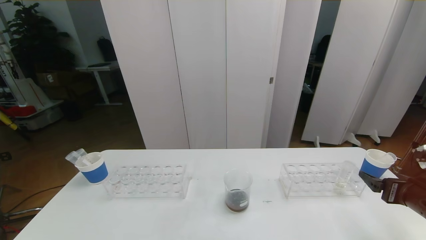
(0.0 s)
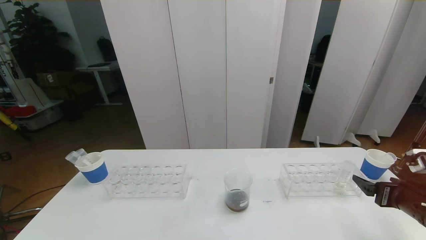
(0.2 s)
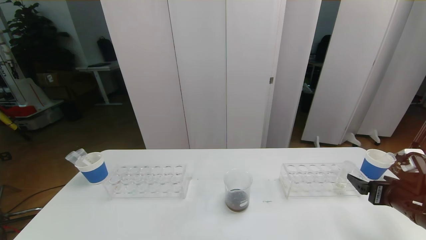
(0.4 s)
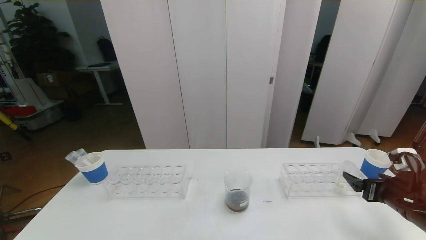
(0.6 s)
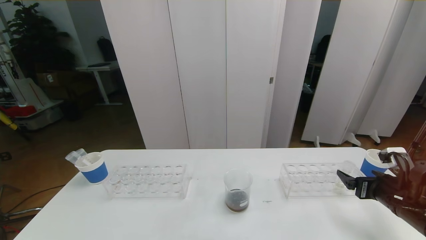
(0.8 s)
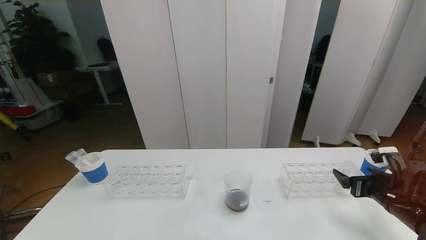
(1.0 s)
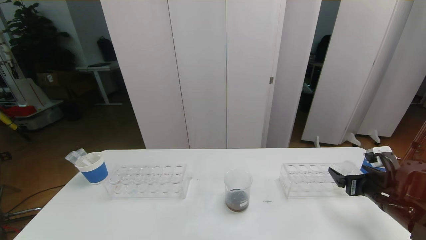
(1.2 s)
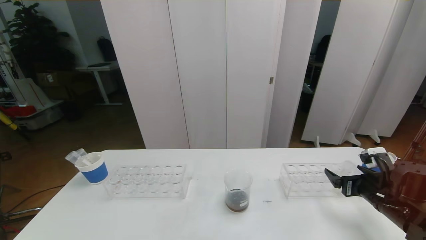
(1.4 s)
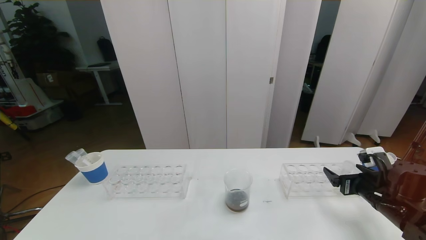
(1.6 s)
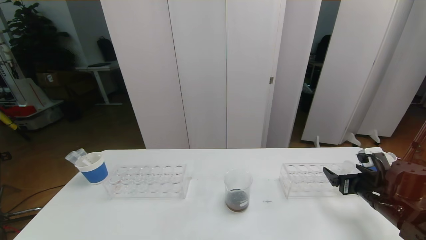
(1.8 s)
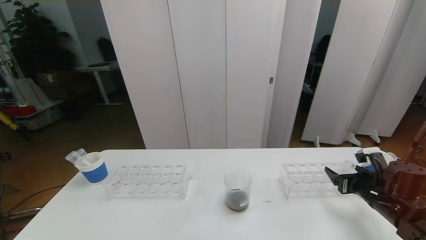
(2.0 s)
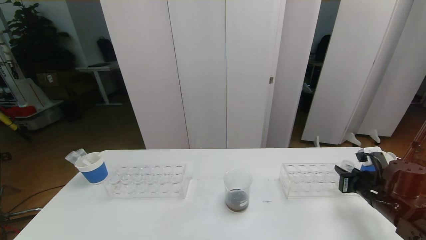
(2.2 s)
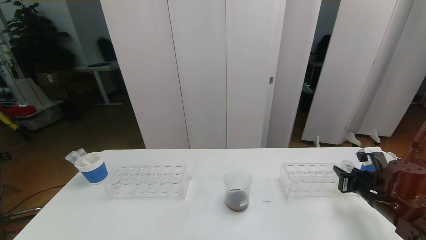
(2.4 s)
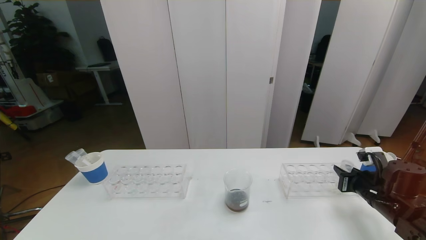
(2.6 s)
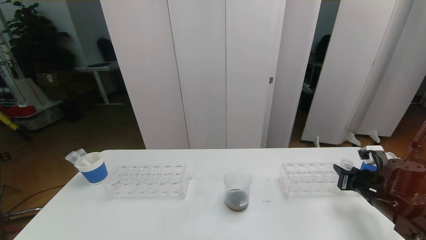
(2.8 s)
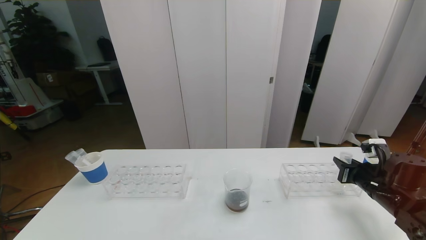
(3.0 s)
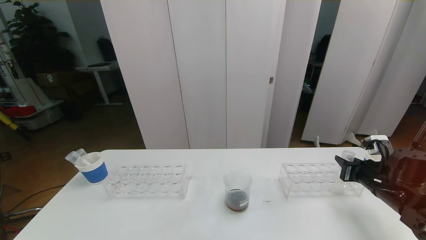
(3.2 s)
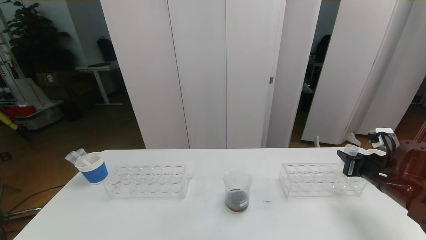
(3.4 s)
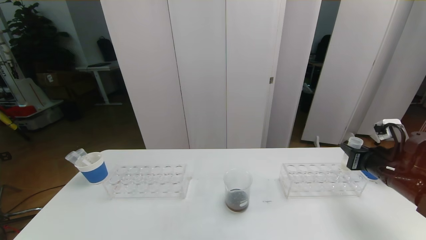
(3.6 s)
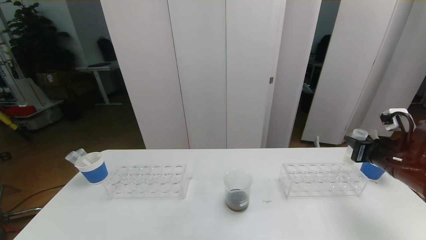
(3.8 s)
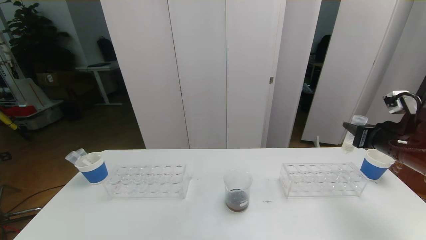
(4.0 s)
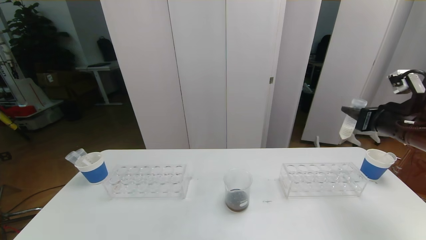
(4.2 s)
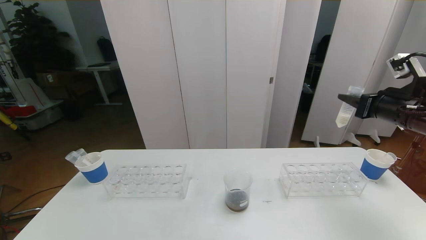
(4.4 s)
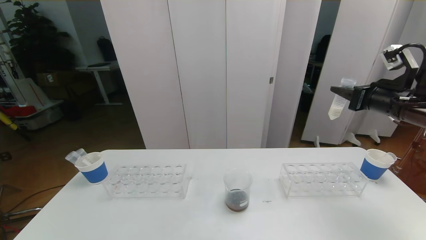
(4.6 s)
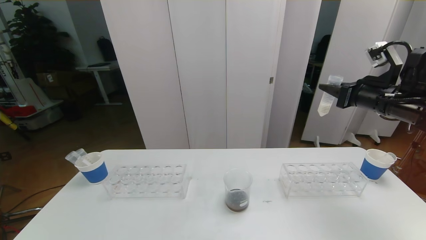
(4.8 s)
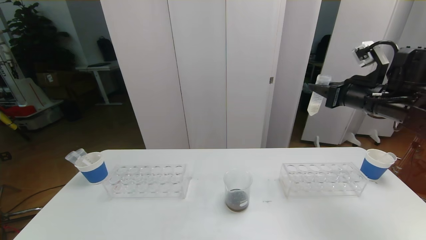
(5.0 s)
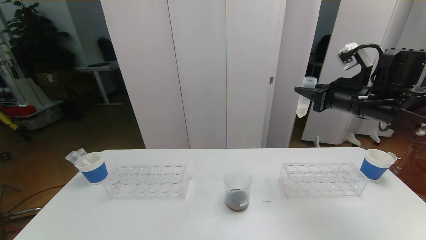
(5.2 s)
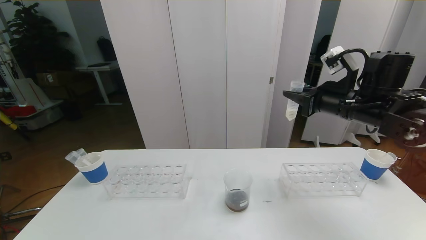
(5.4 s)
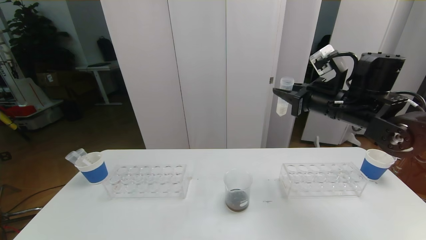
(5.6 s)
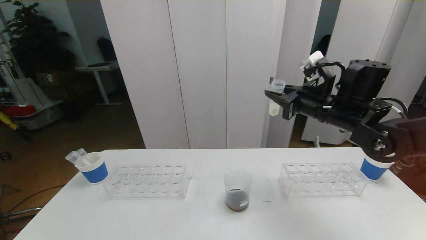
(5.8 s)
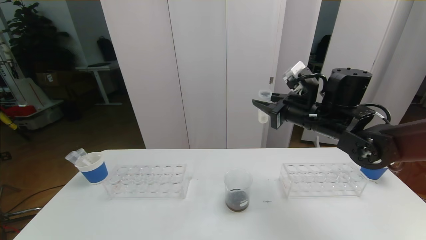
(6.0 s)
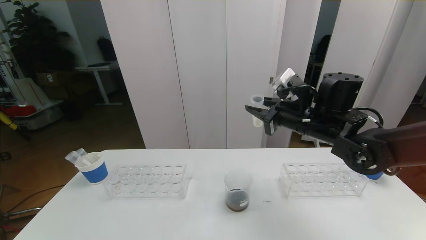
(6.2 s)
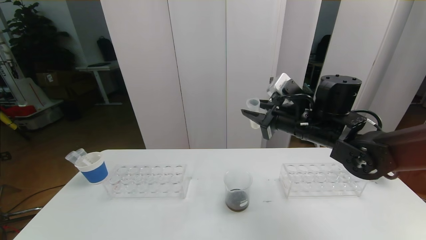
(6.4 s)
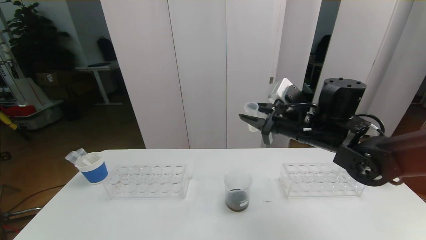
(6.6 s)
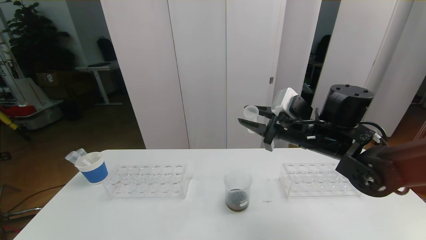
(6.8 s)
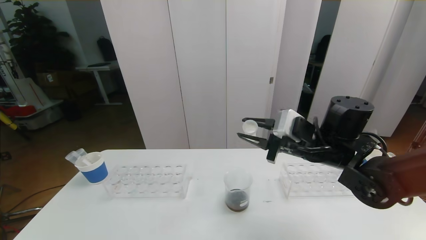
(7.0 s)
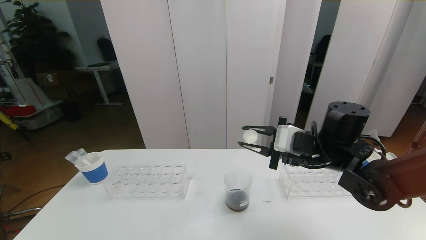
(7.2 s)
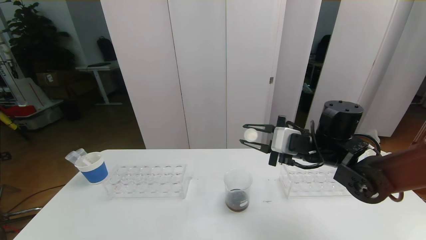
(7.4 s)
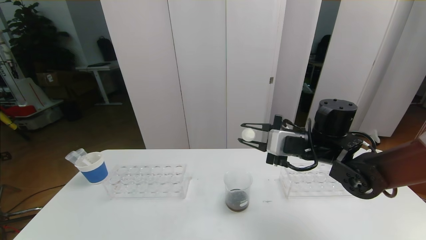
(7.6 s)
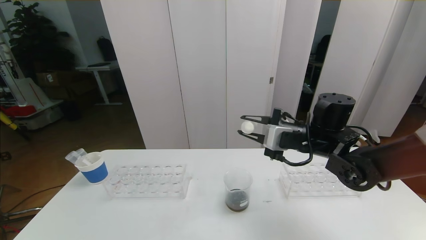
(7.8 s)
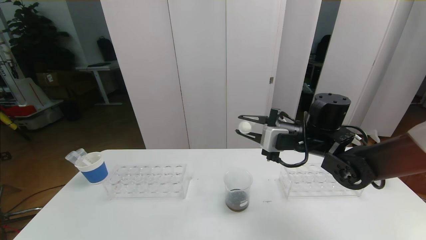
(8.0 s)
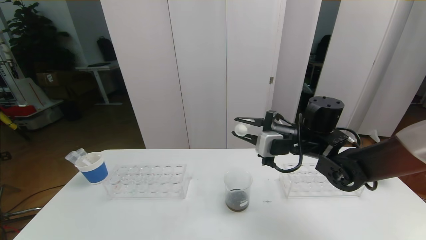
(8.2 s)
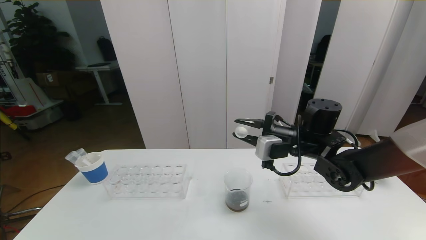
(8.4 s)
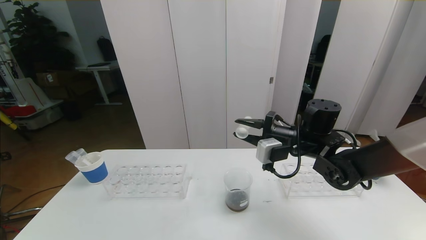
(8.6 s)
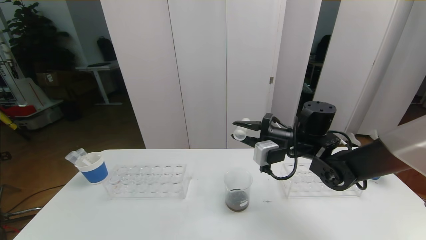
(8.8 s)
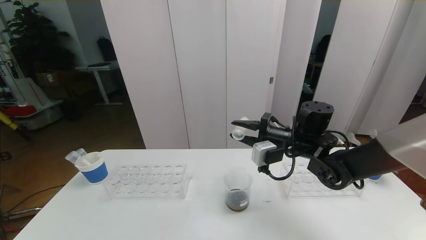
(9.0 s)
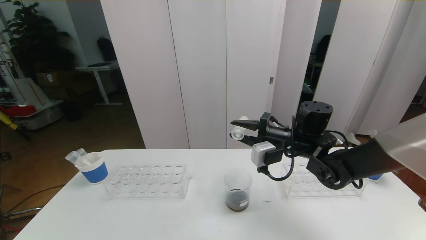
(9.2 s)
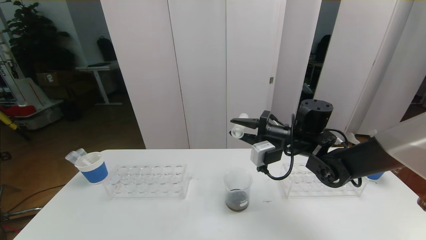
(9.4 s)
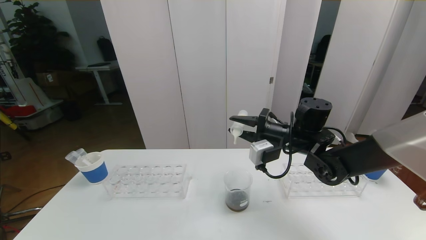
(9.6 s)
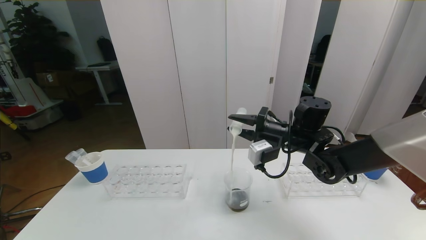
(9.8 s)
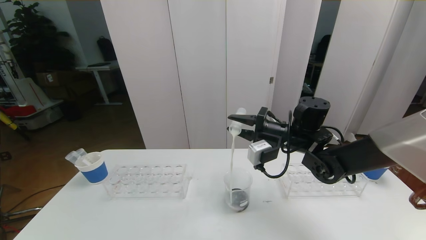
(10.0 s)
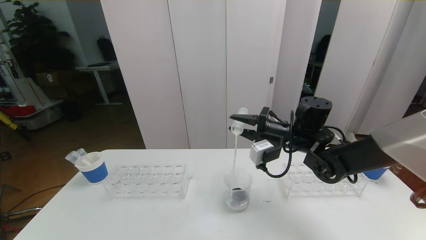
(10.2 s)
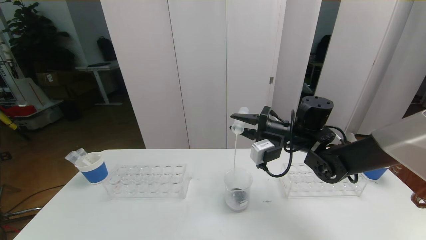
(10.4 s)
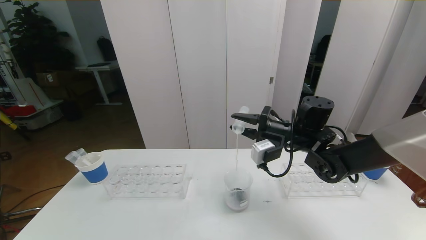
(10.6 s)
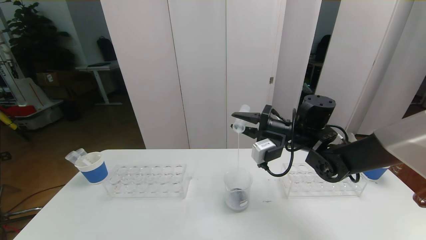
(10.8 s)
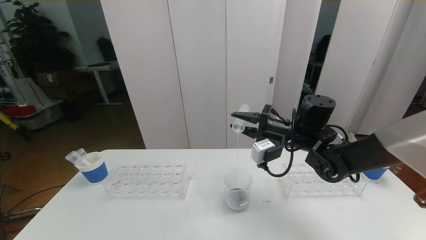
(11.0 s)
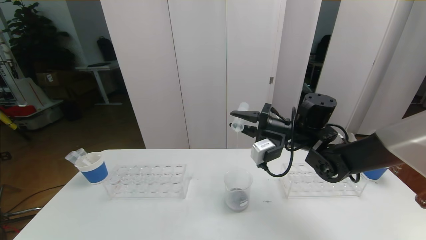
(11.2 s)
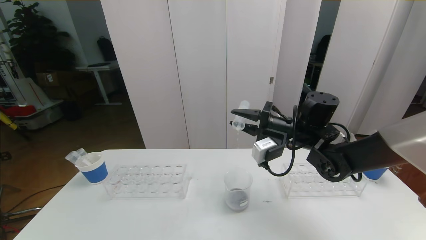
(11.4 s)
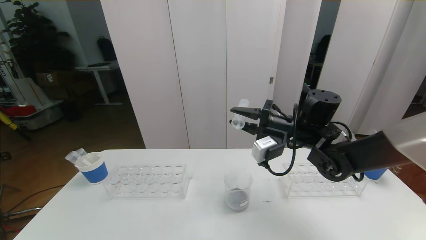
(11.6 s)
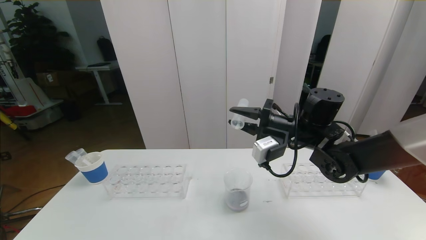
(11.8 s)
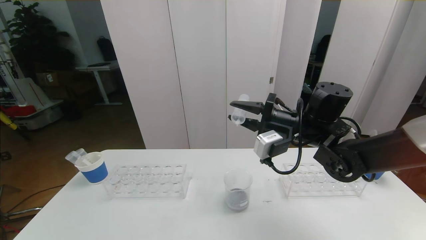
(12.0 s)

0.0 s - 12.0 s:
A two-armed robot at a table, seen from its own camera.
Task of the whole recording: pick up the test tube with red pigment the test tube with blue pigment and the test tube with white pigment by grippers and pour them into the beaker.
0.0 s - 1.6 s: The right gripper shifts some 10 cm forward and downward.
1.6 s - 3.0 s: The right gripper closes up.
3.0 s - 4.4 s: The right gripper travels upward by some 20 cm.
4.4 s - 6.0 s: The right gripper goes roughly 15 cm to the left.
6.0 s - 7.6 s: The right gripper is displaced downward by some 5 cm.
9.0 s - 12.0 s: The grippers make only small movements.

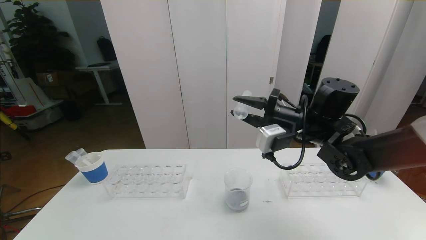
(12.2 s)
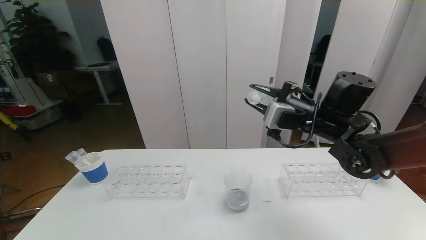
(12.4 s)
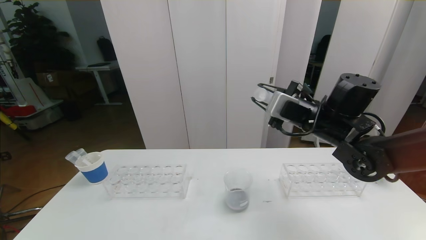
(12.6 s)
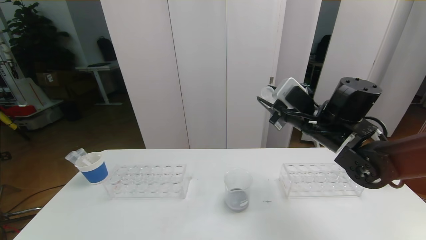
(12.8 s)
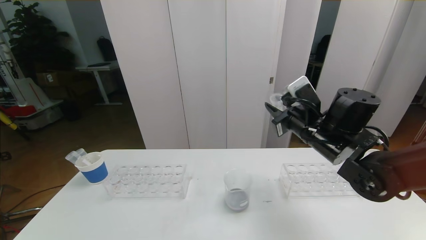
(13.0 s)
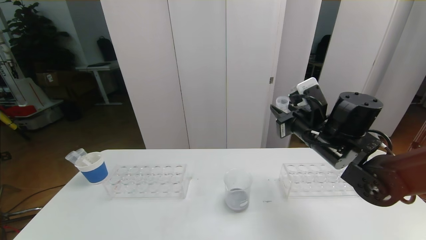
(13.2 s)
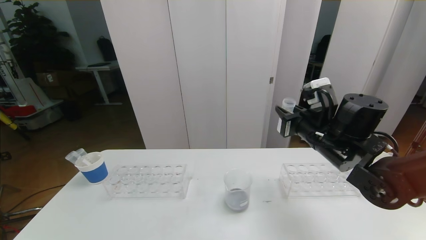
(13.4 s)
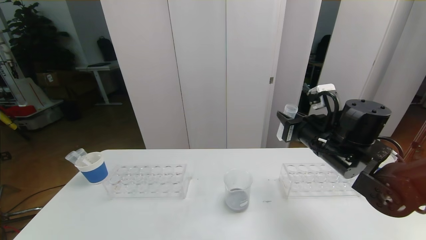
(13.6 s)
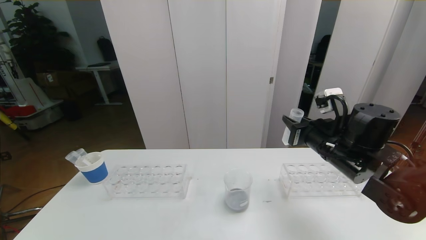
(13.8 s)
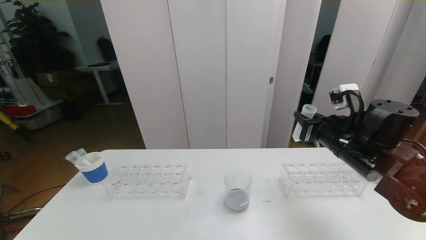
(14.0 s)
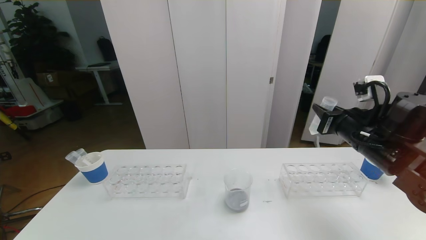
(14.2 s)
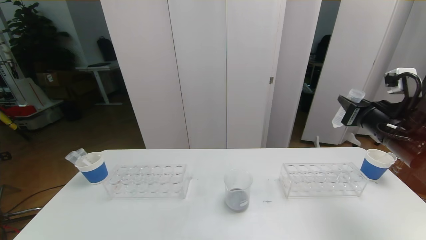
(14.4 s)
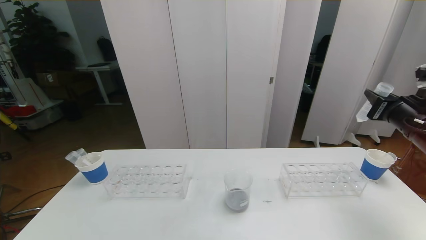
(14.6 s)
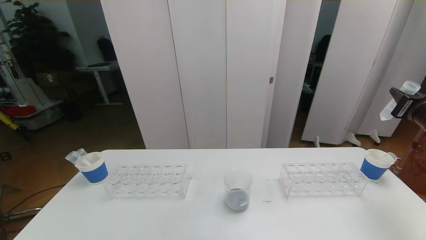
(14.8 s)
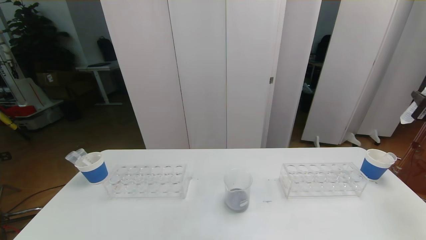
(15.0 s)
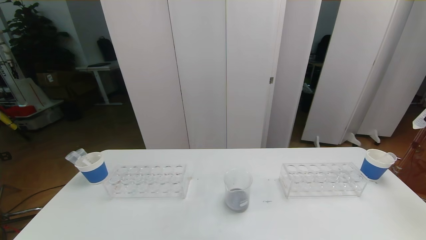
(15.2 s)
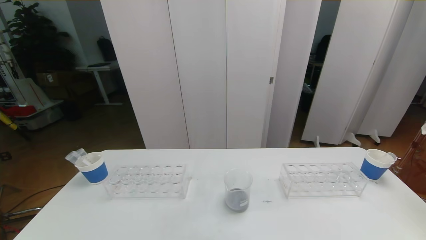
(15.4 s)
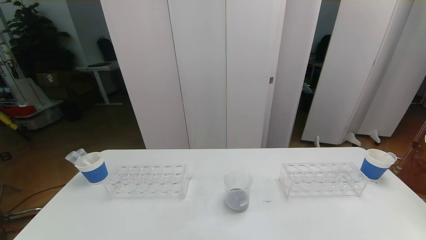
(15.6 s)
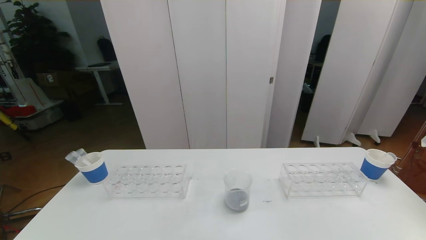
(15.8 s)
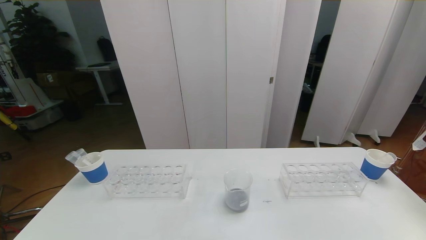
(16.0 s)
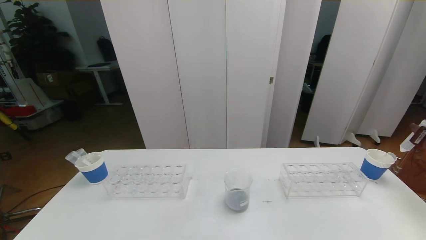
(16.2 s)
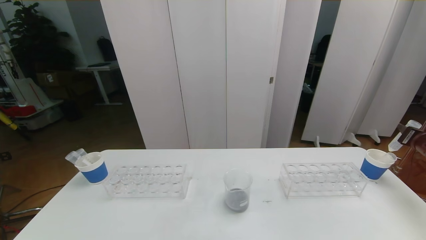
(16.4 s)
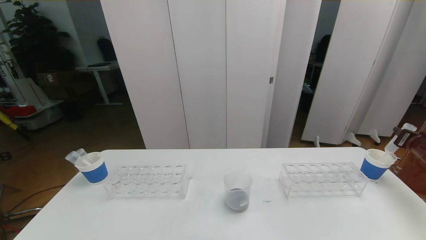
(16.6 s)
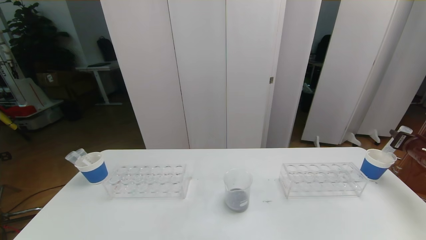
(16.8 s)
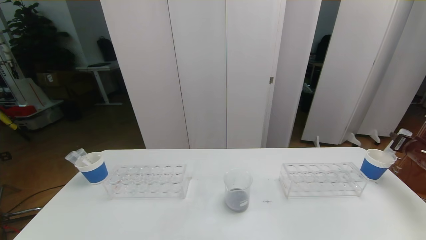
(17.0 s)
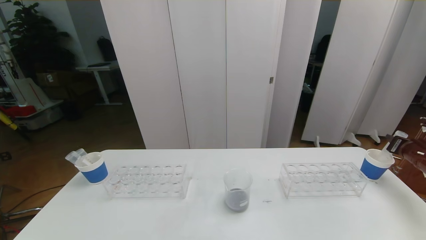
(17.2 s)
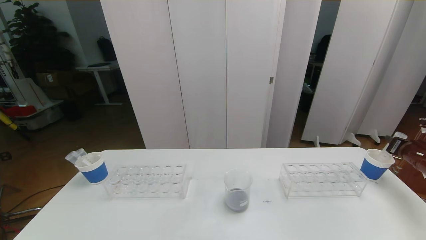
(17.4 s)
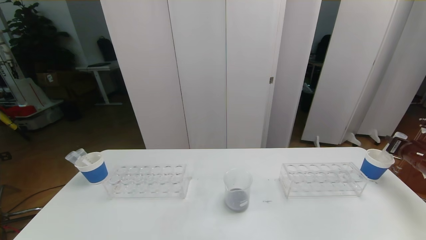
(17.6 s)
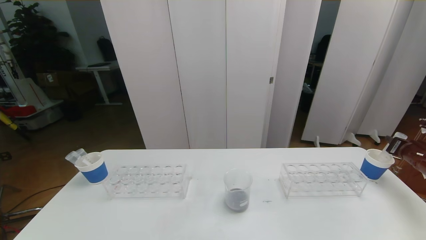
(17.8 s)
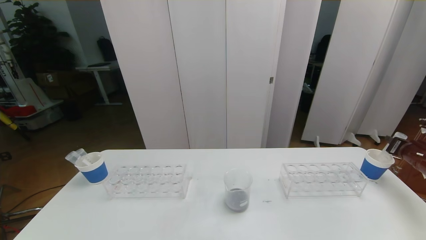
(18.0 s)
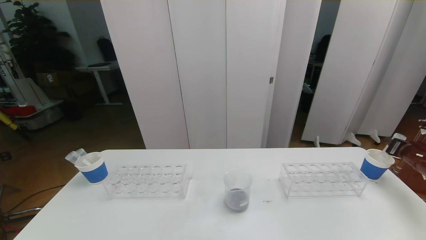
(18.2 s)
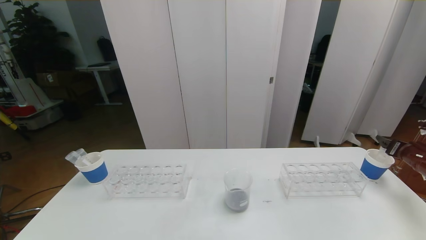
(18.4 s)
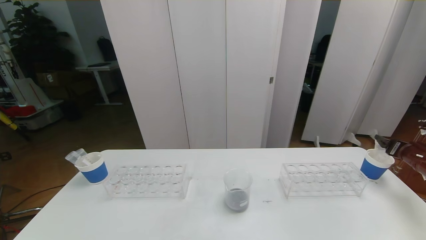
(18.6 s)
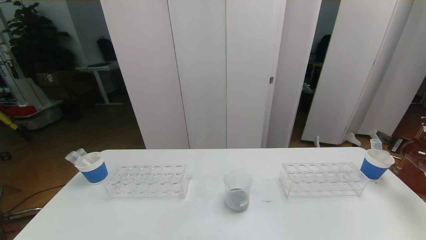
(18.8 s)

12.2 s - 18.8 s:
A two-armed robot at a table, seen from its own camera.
Task of the whole recording: pick up the test tube with red pigment the test tube with blue pigment and the test tube with white pigment by grippers and pour them into the beaker.
12.2 s - 13.8 s: The right gripper shifts approximately 10 cm to the right and backward.
13.8 s - 15.4 s: The right gripper moves to the right, roughly 30 cm.
15.4 s - 17.2 s: The right gripper goes about 10 cm downward and forward.
